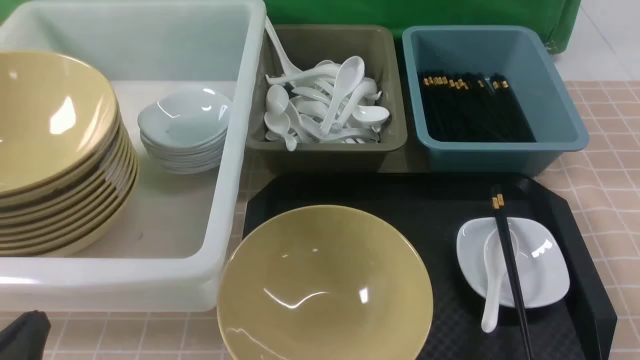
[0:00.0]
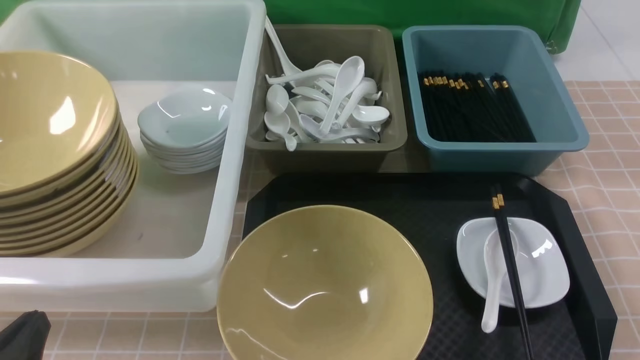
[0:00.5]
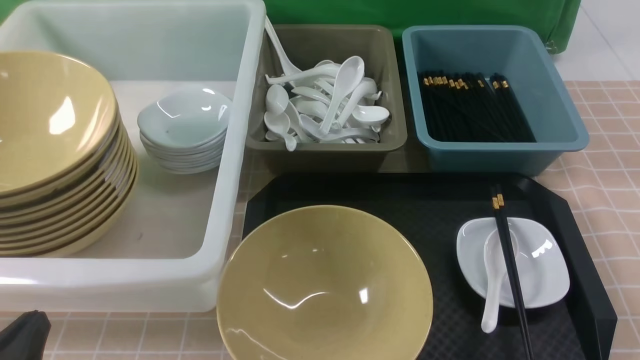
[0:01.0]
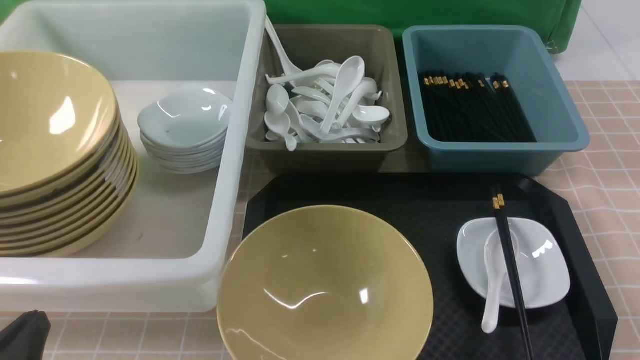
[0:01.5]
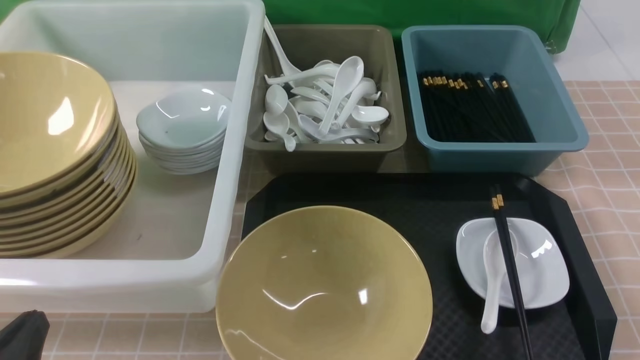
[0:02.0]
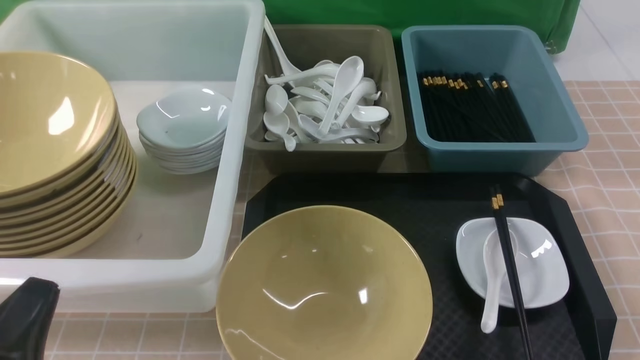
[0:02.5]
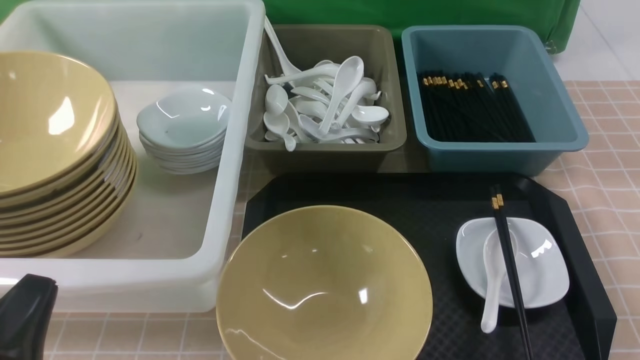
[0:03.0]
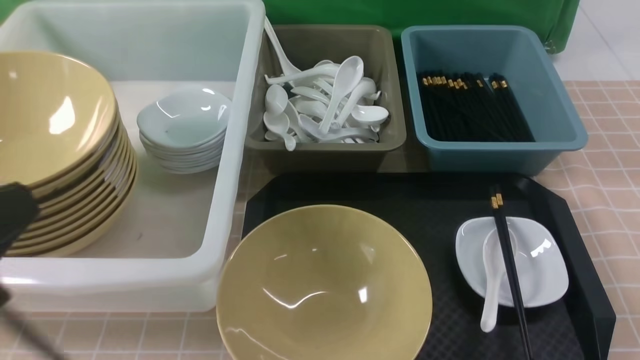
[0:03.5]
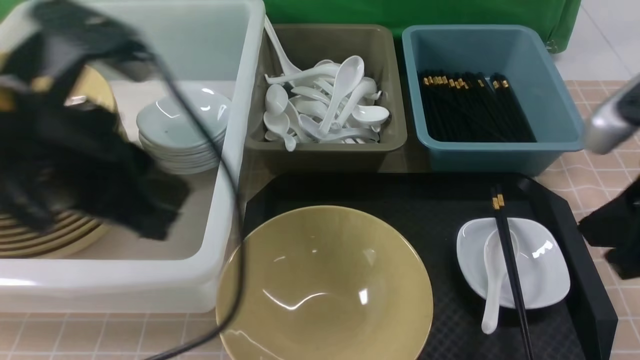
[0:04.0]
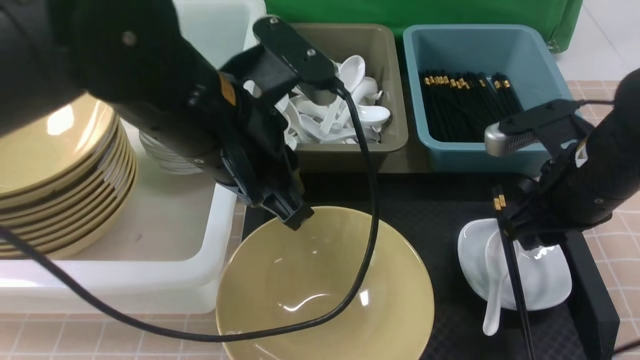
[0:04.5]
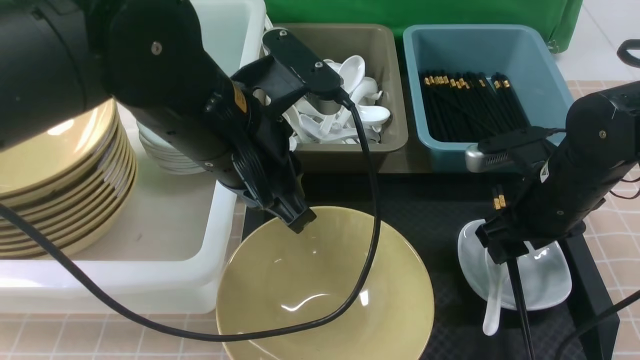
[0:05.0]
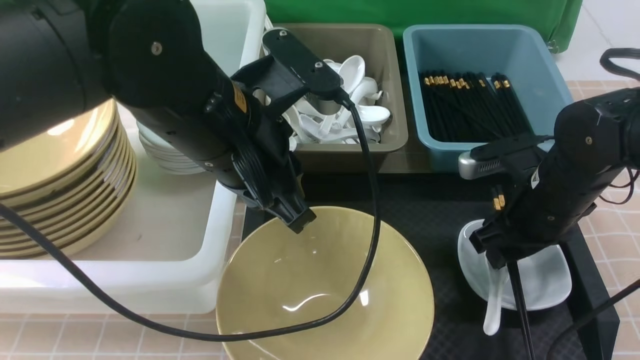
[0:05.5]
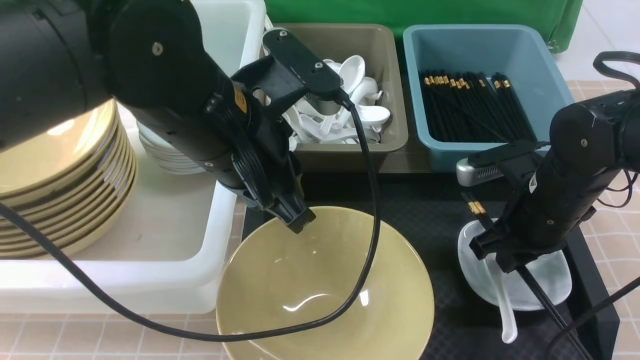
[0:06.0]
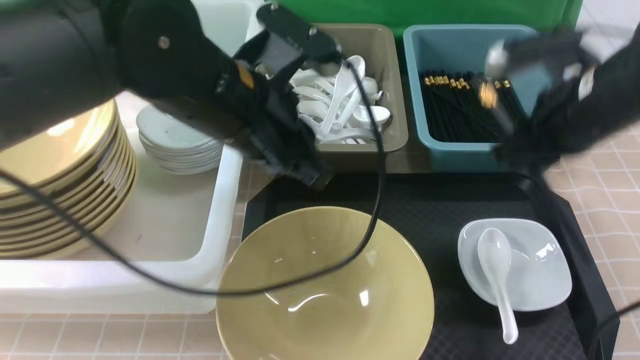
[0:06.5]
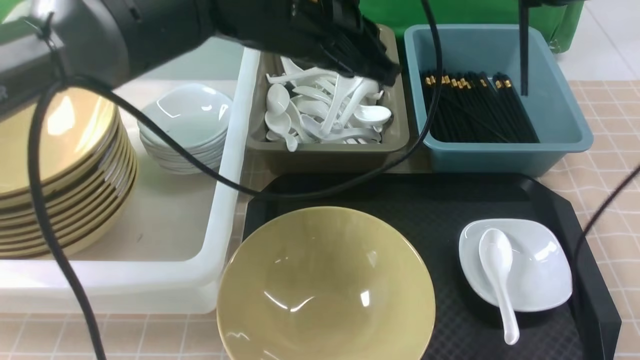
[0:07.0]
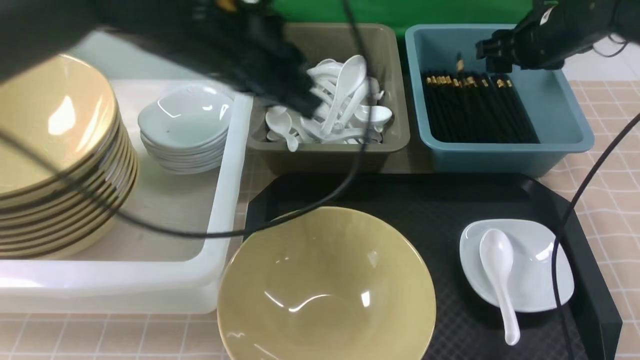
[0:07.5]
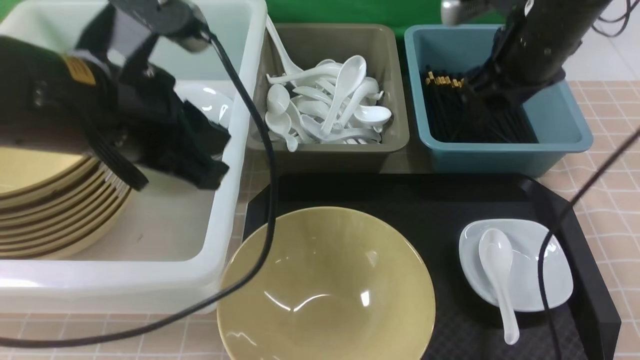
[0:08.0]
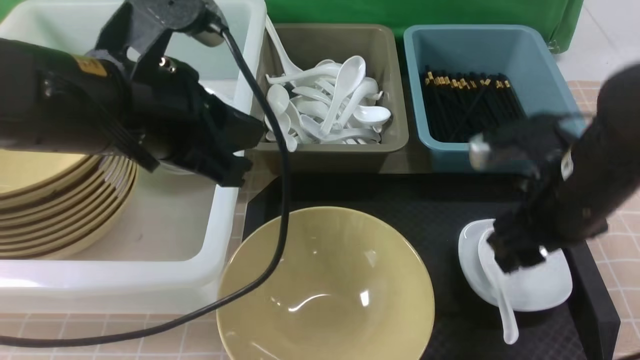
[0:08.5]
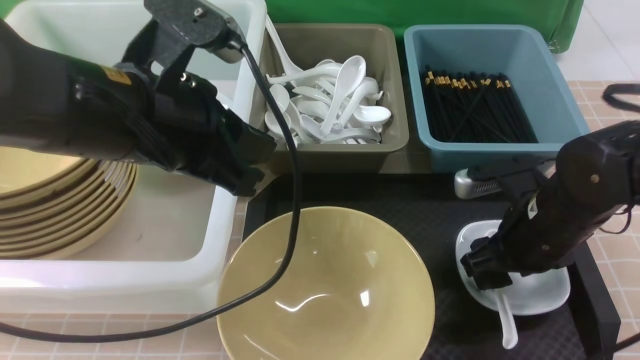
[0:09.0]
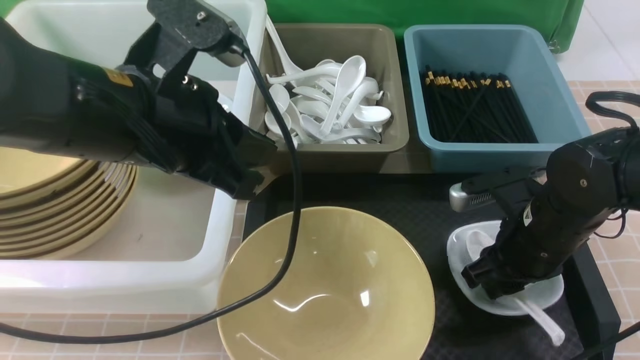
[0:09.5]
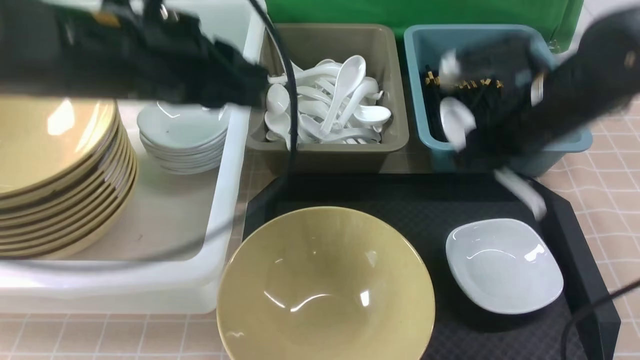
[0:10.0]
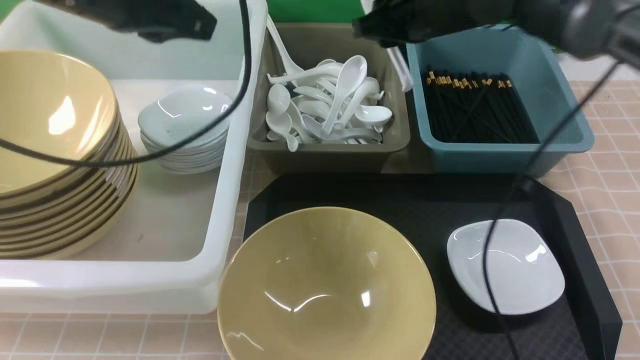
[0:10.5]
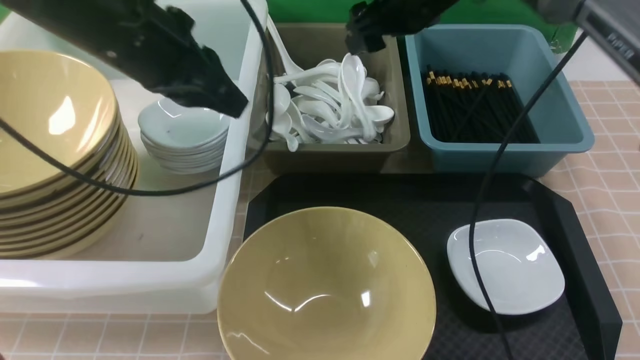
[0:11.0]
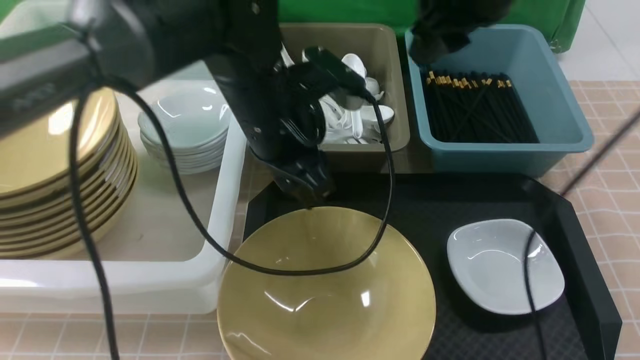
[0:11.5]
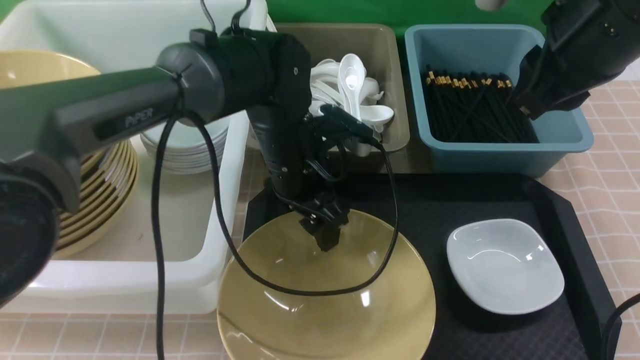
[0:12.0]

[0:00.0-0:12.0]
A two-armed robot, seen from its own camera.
Task of the whole recording: on brown table put chopsticks spoon bowls plates into blue grey white boxes.
Step, 0:00.0 to 0:06.0: use the right arm to grab the chopsticks.
Step, 0:06.5 to 0:07.5: use the right arm to put the chopsticks into the small storage box on the right.
Step, 0:08.0 to 0:09.5: use the right arm to grab the soup spoon in the middle.
Step, 0:10.0 to 0:10.5: use the right arm to put the soup spoon into the small storage box in the middle.
0:00.0 to 0:02.0: The grippers move only a little.
0:02.0 to 0:04.0: The right gripper shifts some 20 cm upward, forward and to the left, and closes; the left gripper heads upward, forward and to the right, covering roughly 25 cm.
0:04.0 to 0:06.0: The left gripper shifts roughly 10 cm to the right and forward. The right gripper goes roughly 15 cm downward and forward, and opens, then closes once more.
0:06.0 to 0:08.0: The right gripper travels upward and forward by some 15 cm, and opens up. The left gripper goes about 5 cm to the left.
0:08.0 to 0:10.0: The right gripper moves some 15 cm downward and comes back, and closes up; the left gripper ends up roughly 5 cm from where it was.
0:10.0 to 0:12.0: The right gripper travels upward by about 10 cm, travels forward and back again, approximately 15 cm each way, and opens and closes again. The left gripper is displaced downward, to the right and forward by some 20 cm, and opens its fingers.

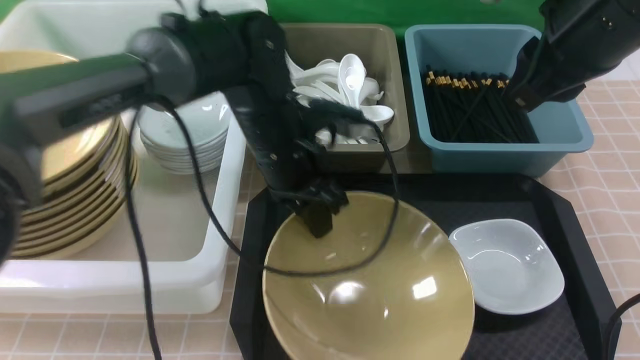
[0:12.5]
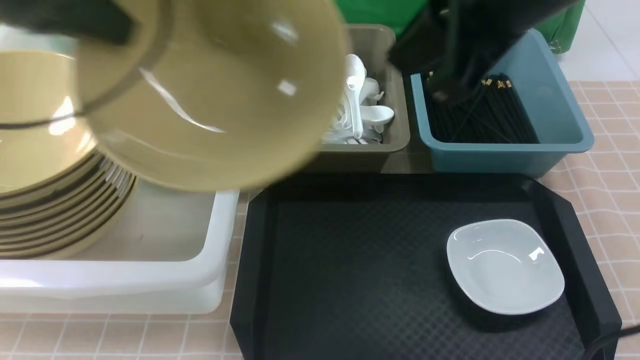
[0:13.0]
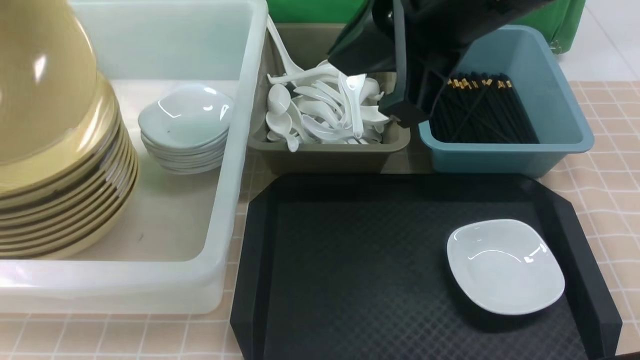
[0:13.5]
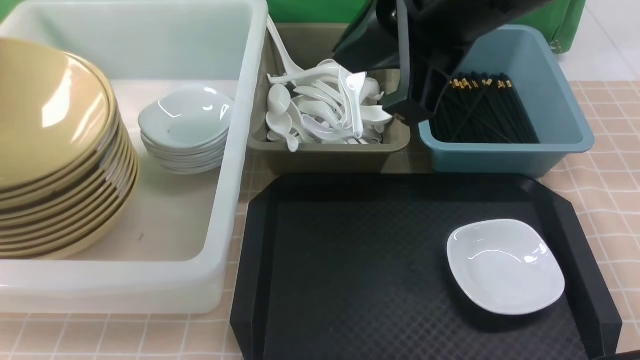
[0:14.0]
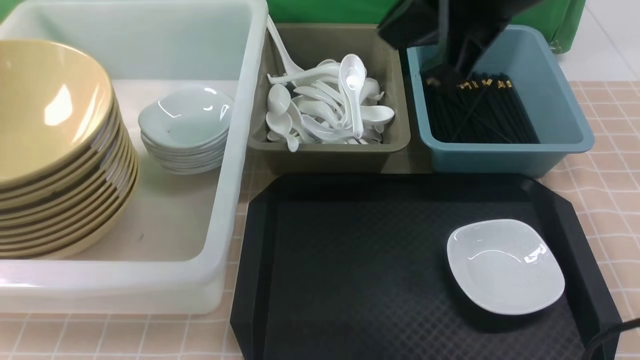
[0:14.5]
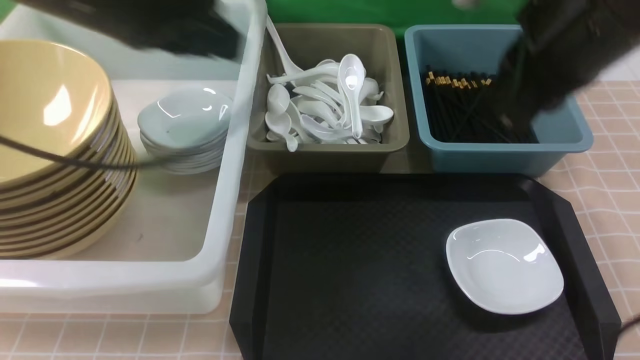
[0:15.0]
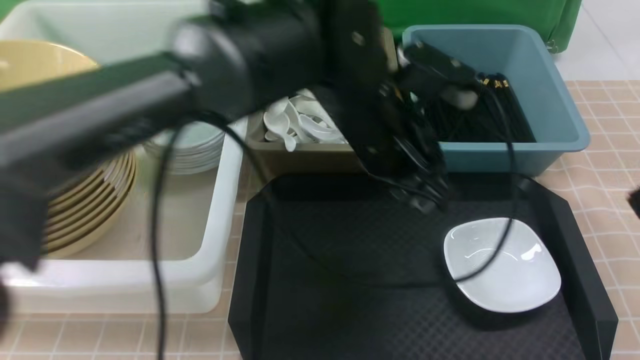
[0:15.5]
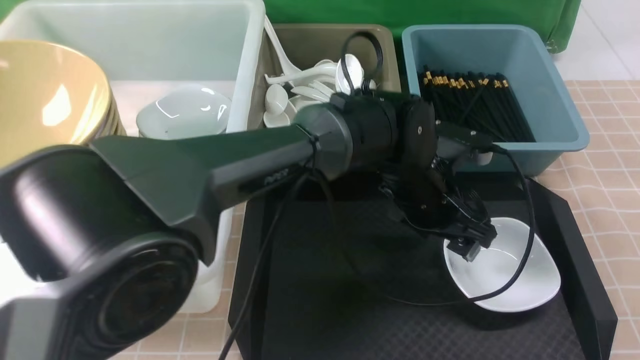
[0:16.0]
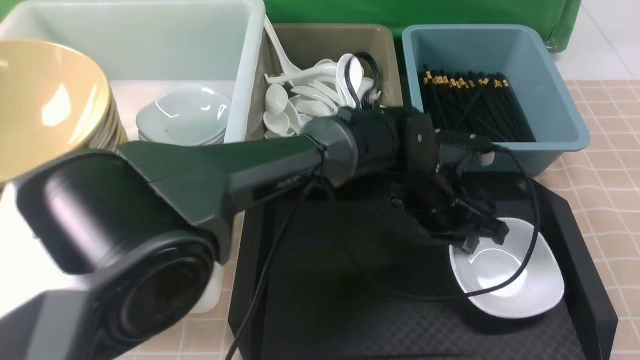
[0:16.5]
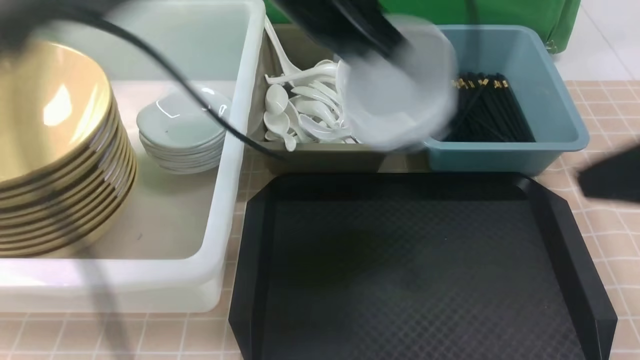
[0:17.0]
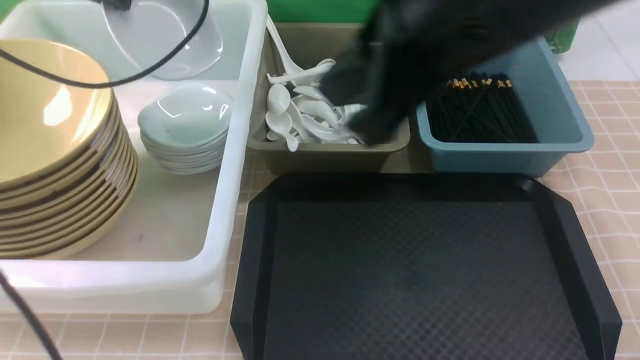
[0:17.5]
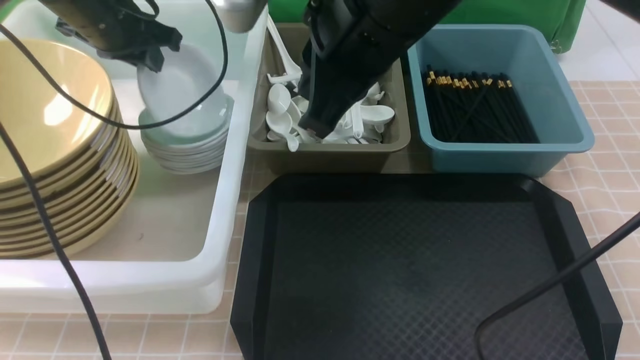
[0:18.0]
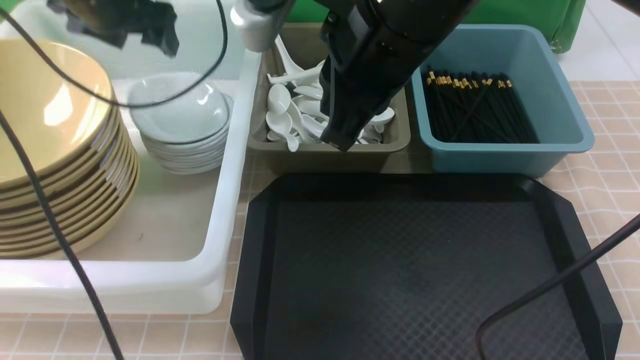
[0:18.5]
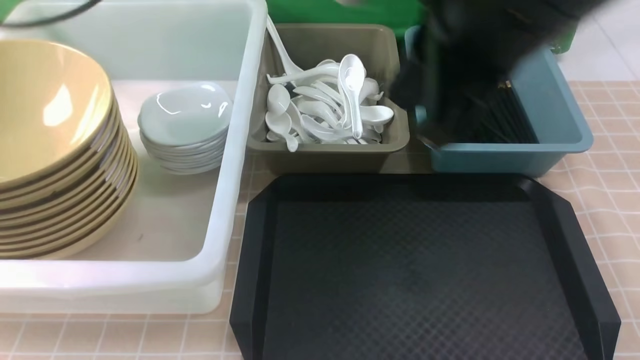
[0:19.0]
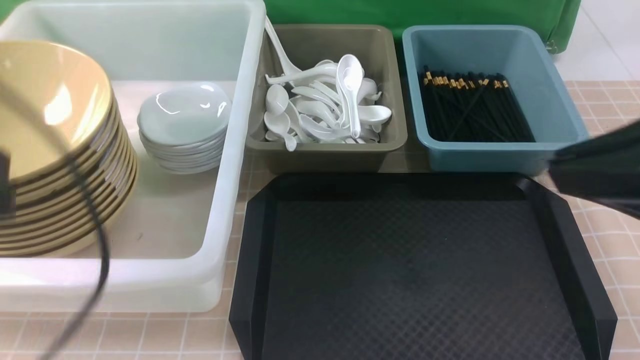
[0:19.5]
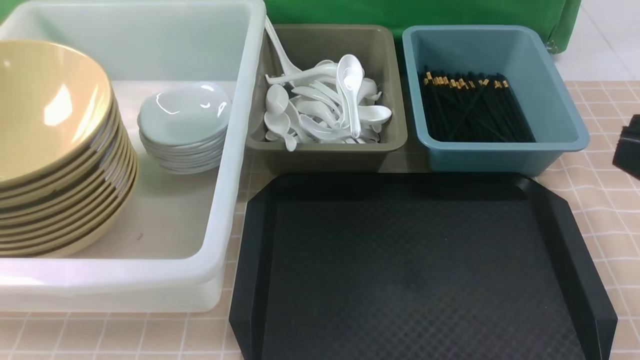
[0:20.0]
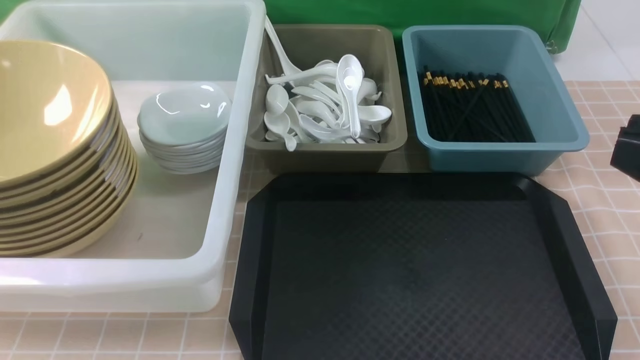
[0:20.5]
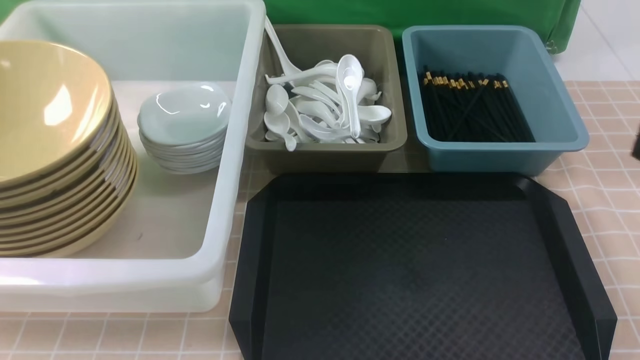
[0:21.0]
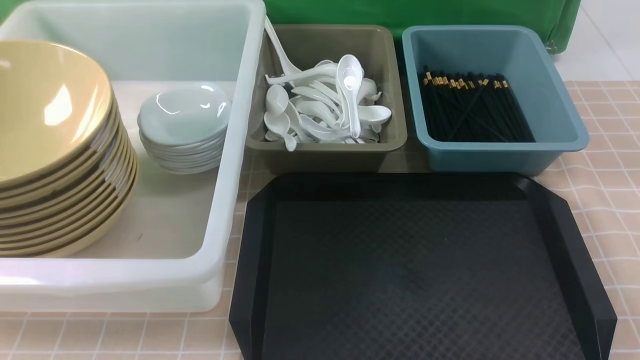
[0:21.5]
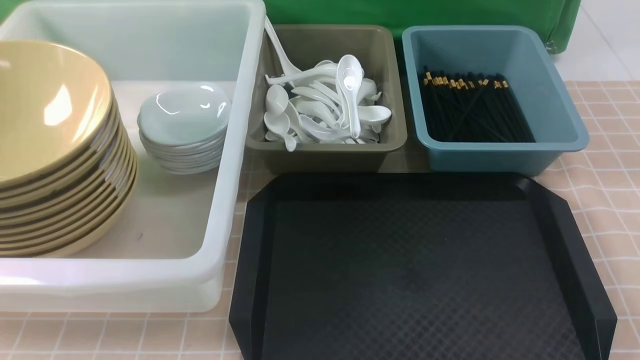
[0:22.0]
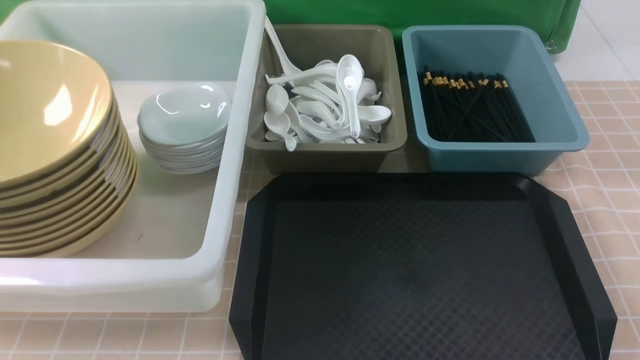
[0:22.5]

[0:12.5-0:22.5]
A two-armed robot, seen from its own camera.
Task of the whole recording: on brown table put chopsticks spoon bowls plates into blue grey white boxes.
Step, 0:13.0 to 0:14.5: use the left arm to put the noodle bowl into the large storage box on the left.
Step, 0:15.0 to 0:16.5: use the left arm to grab the plate.
Step, 0:17.0 to 0:18.5: use the left arm to put the plate into the large storage box on the left.
0:12.5 to 0:14.5: The right gripper goes roughly 5 cm to the left, and closes its fingers; the left gripper travels to the left and upward by approximately 35 cm, and opens.
0:14.5 to 0:16.5: The right gripper shifts roughly 20 cm backward and to the right. Meanwhile the left gripper moves to the right and downward, approximately 50 cm, and closes up.
0:16.5 to 0:18.5: The left gripper heads to the left and upward, covering about 40 cm, and opens its fingers. Meanwhile the right gripper heads to the left and forward, covering some 30 cm.
0:18.5 to 0:20.5: The left gripper goes some 40 cm backward, and closes, while the right gripper moves backward and to the right, about 25 cm.
